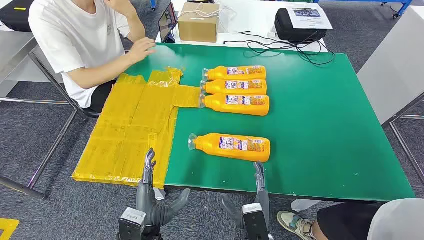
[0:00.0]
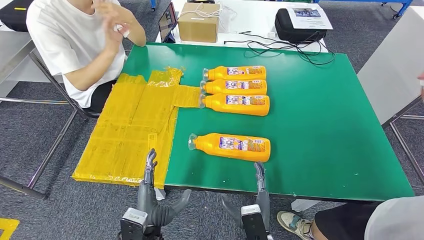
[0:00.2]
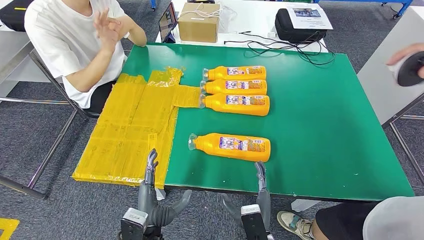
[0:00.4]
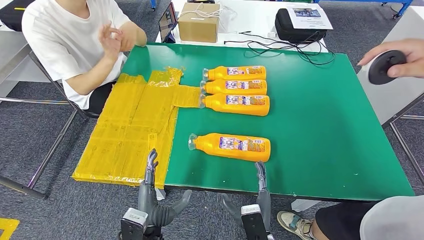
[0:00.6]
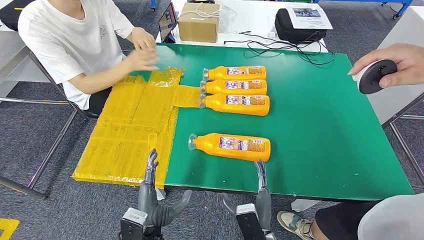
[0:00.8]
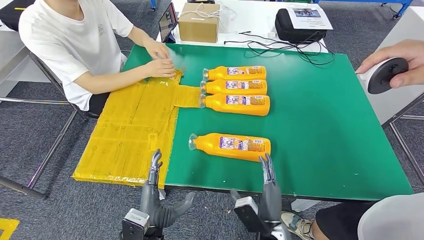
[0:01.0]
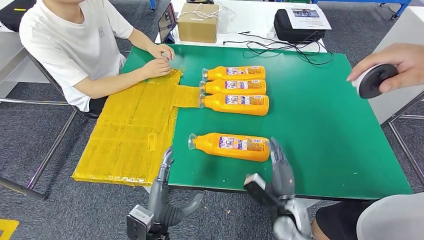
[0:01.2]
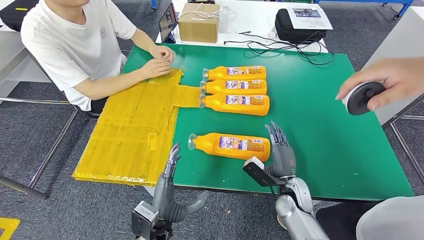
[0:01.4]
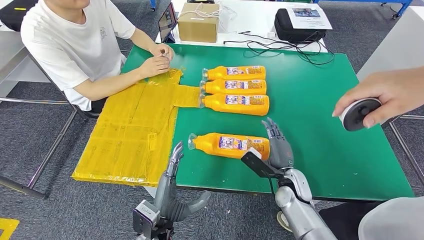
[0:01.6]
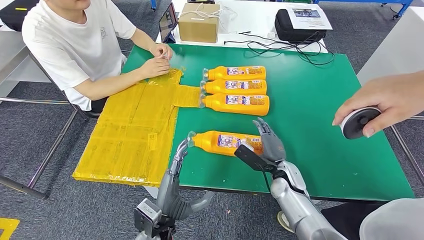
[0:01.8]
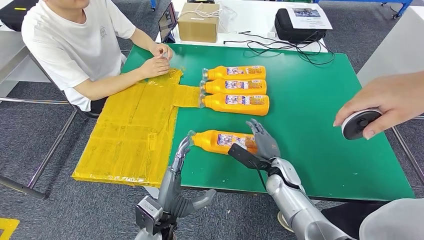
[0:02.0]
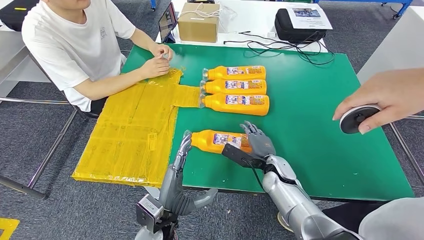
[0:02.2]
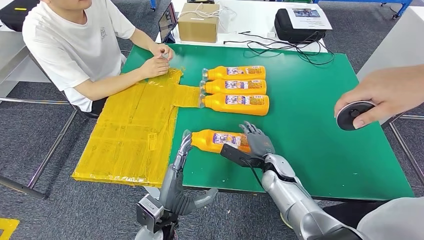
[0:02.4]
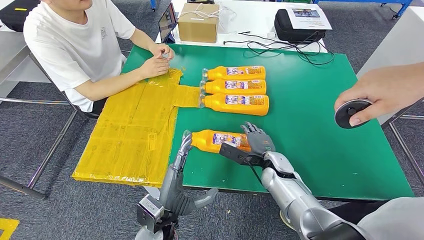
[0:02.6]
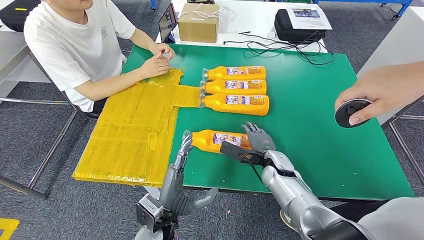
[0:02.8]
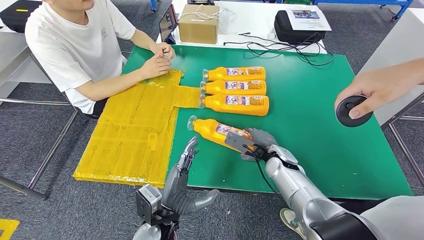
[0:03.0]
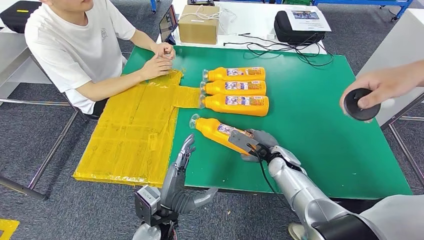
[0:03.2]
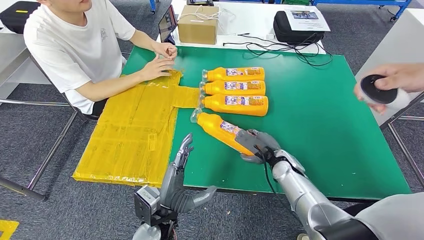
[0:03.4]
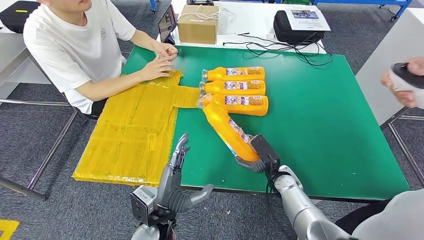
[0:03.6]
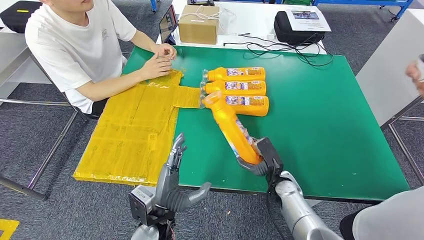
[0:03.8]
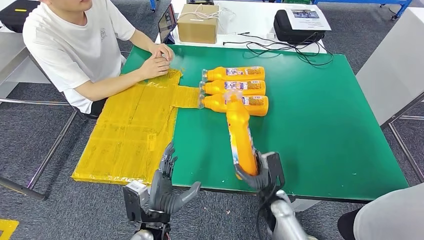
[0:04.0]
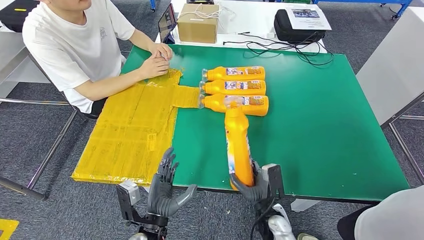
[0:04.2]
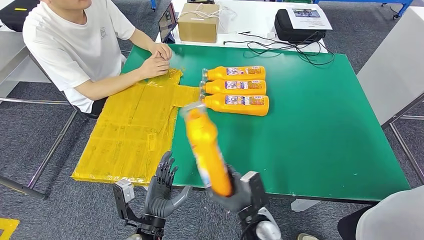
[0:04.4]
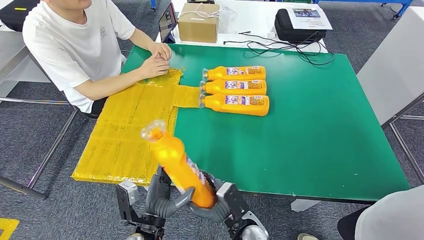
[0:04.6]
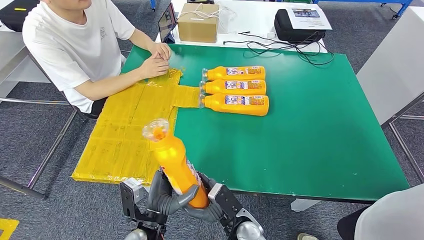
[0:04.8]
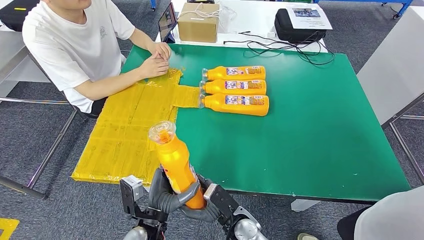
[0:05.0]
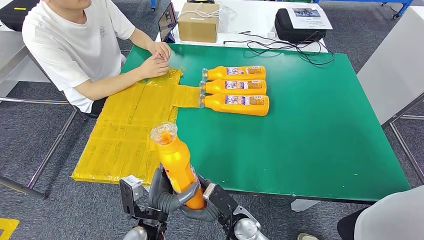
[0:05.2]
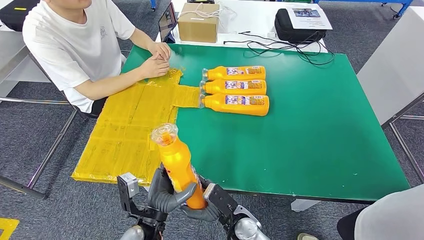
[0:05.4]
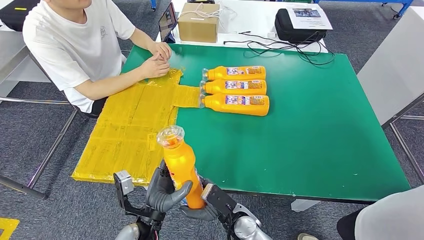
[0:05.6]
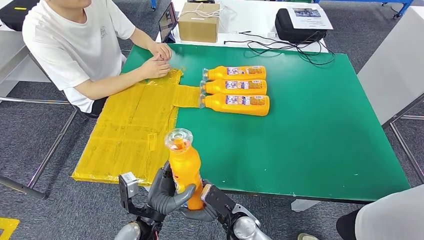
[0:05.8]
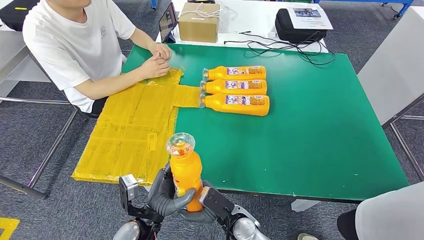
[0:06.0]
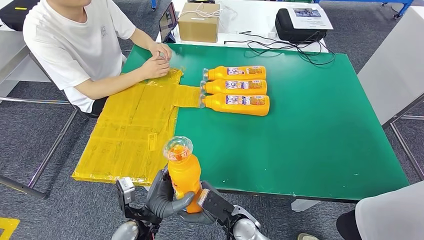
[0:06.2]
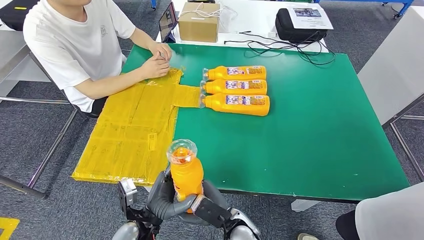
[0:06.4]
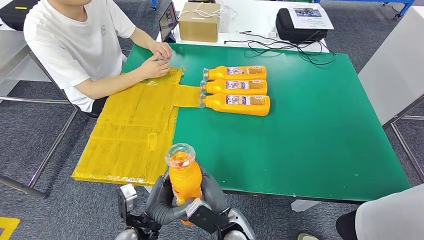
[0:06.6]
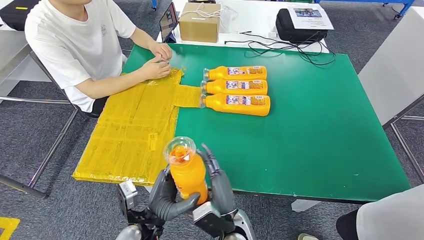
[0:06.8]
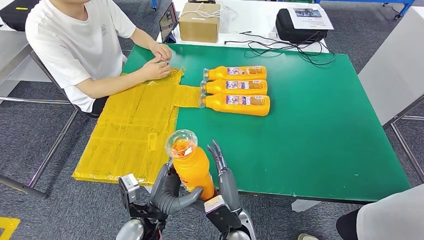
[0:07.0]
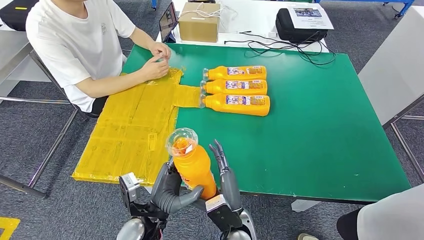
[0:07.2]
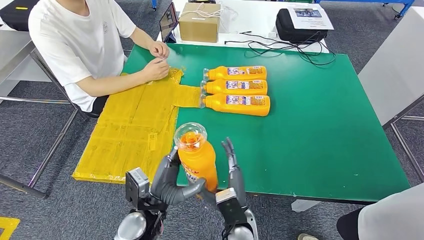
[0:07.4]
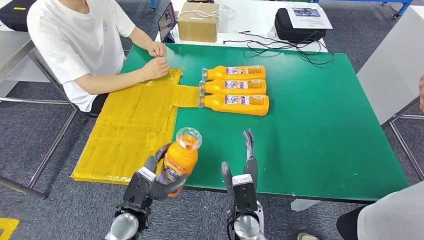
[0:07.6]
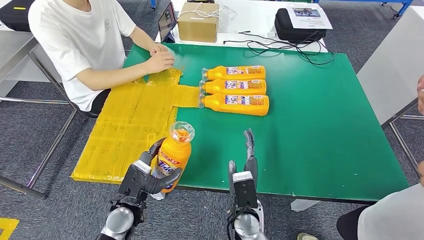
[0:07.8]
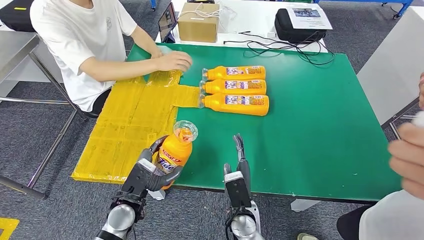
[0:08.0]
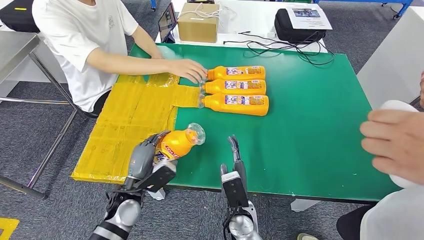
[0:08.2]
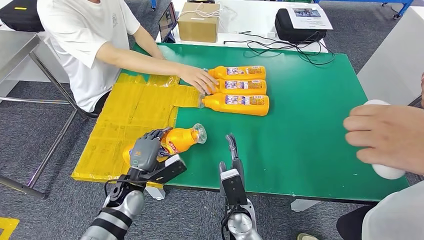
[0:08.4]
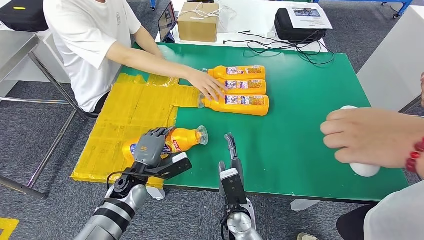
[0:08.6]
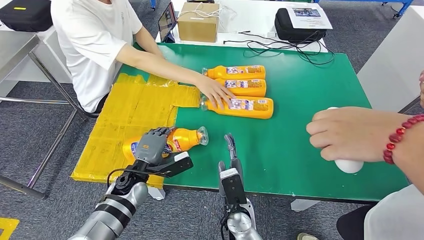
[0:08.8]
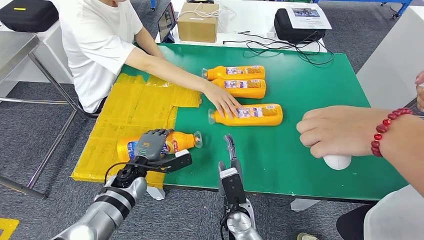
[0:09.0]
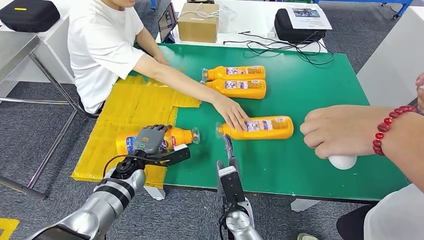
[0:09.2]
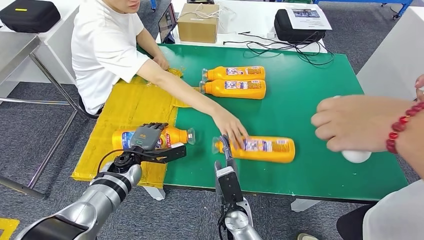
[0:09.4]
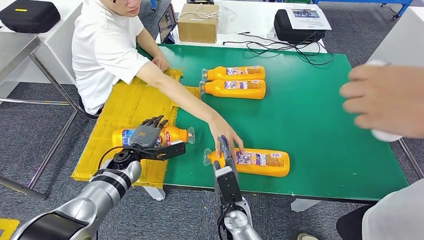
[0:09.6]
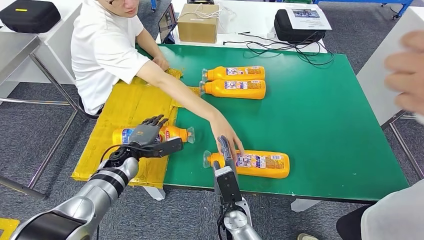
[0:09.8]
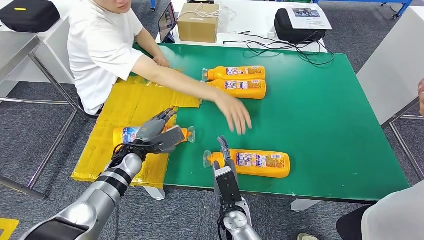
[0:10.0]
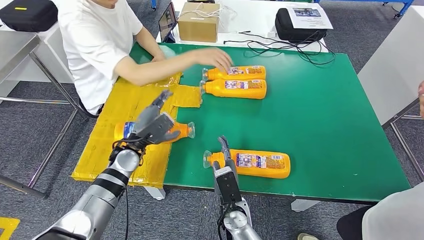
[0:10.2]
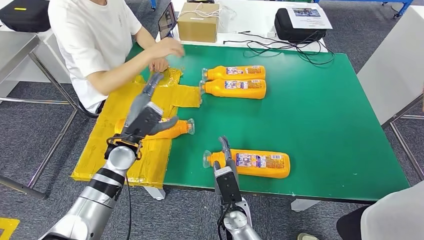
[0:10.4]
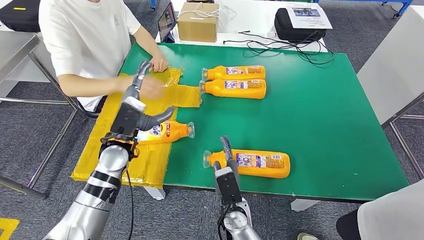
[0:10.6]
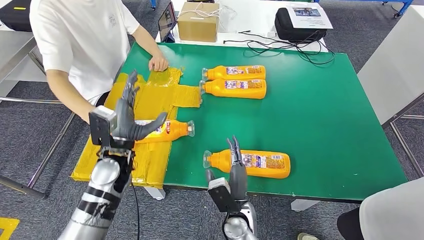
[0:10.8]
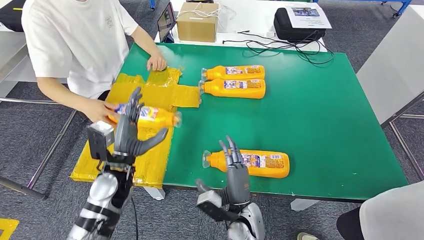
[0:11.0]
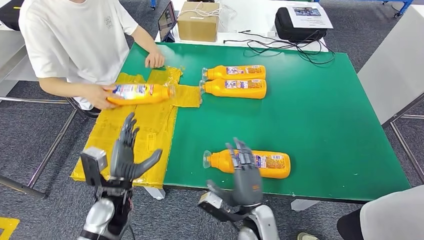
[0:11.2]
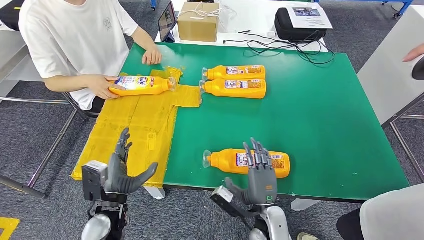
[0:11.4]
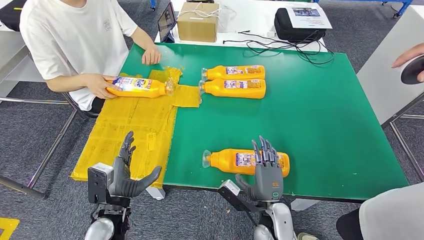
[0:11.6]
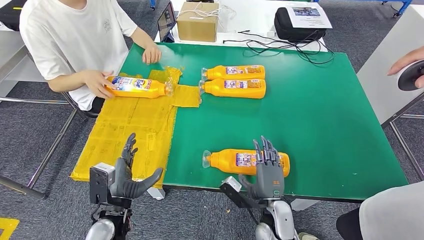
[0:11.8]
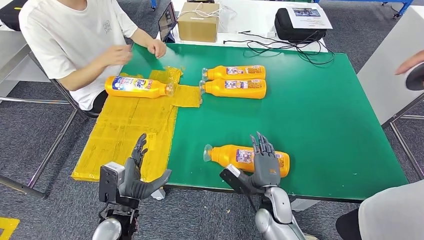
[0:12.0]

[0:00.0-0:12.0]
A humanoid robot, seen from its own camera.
Step, 0:00.0 to 0:04.0: Take the bottle from the table.
Step, 0:04.4 to 0:10.6: Flip the bottle to face forward.
0:01.6 to 0:03.0: The right hand travels forward by about 5 cm.
0:03.0 to 0:04.4: The right hand shifts some 15 cm backward. The left hand moves some 5 cm.
0:04.4 to 0:06.0: The right hand goes roughly 5 cm to the left.
0:06.0 to 0:07.6: The left hand ends up some 5 cm from where it was, while the right hand changes place by roughly 5 cm.

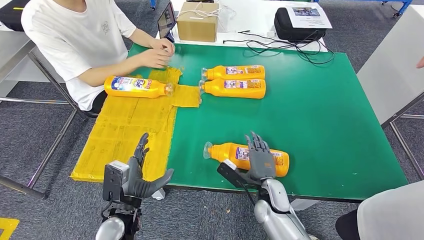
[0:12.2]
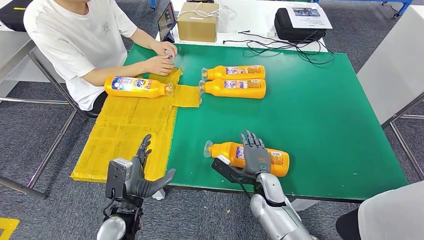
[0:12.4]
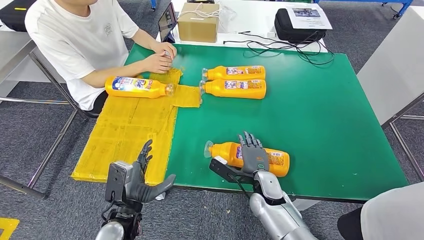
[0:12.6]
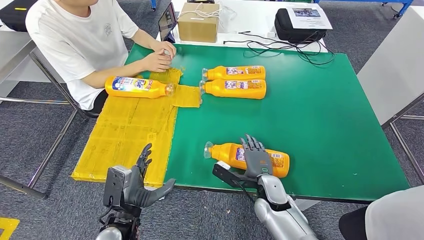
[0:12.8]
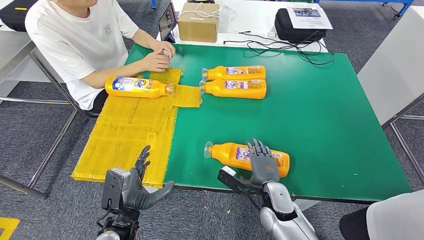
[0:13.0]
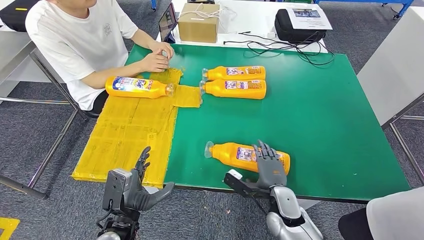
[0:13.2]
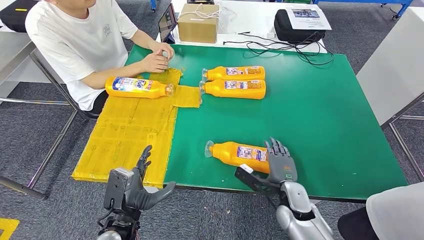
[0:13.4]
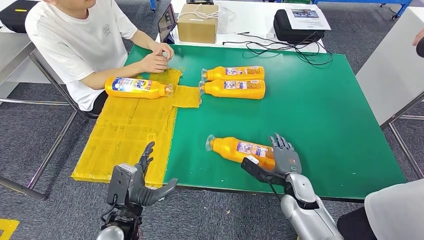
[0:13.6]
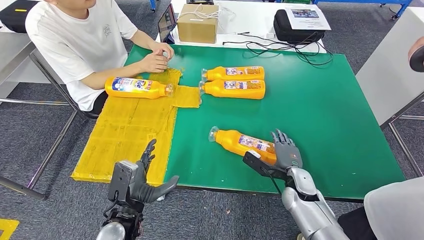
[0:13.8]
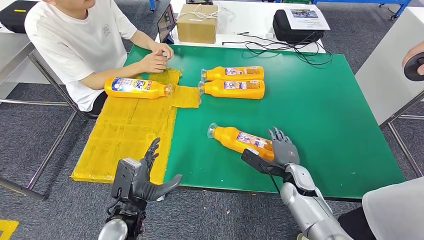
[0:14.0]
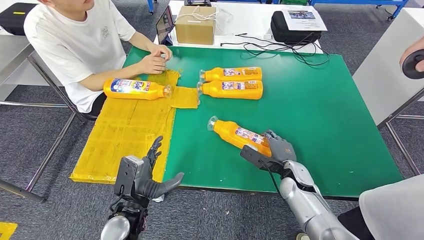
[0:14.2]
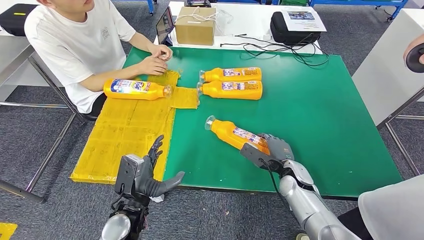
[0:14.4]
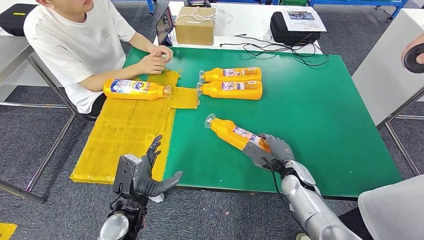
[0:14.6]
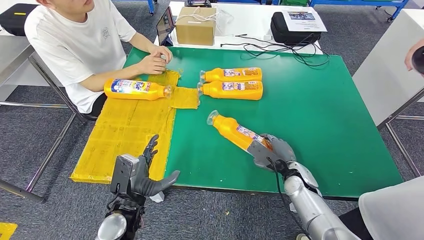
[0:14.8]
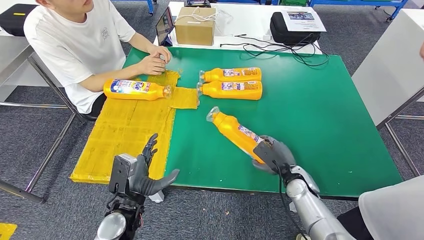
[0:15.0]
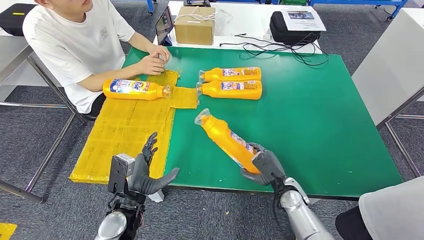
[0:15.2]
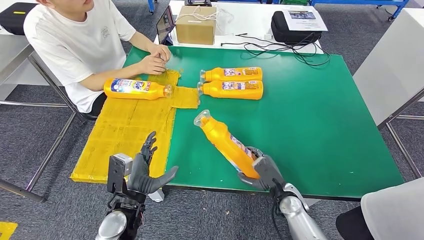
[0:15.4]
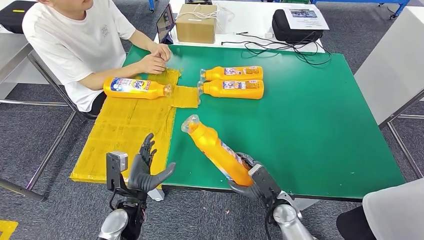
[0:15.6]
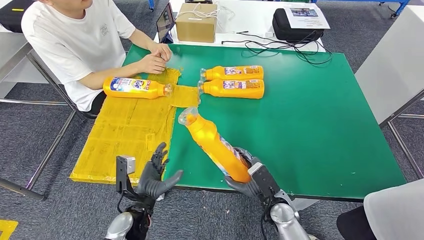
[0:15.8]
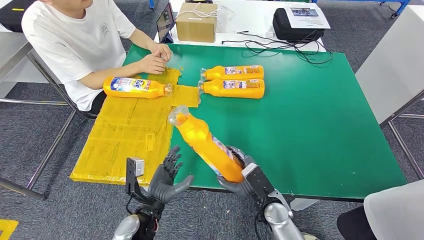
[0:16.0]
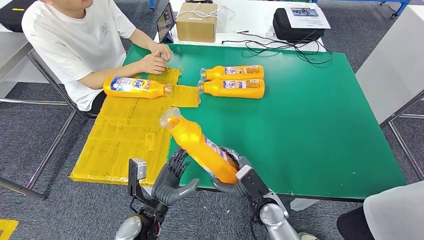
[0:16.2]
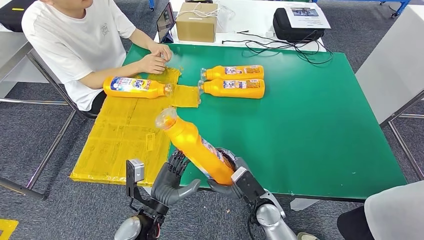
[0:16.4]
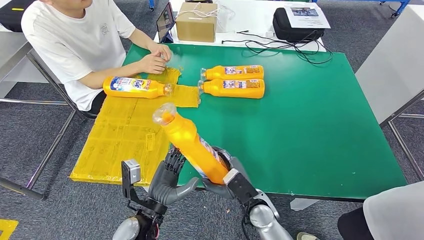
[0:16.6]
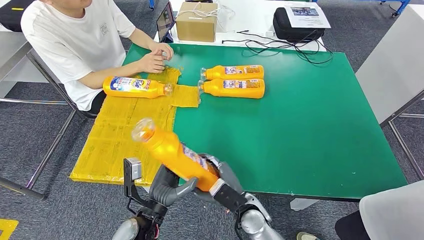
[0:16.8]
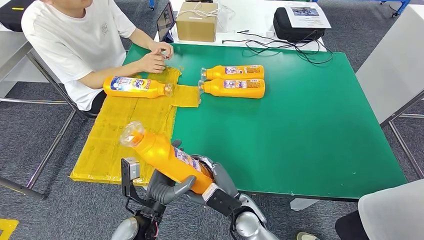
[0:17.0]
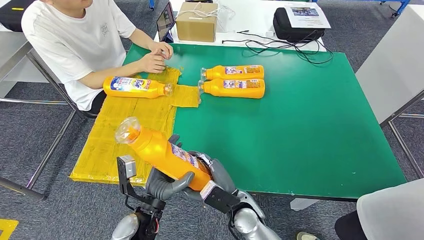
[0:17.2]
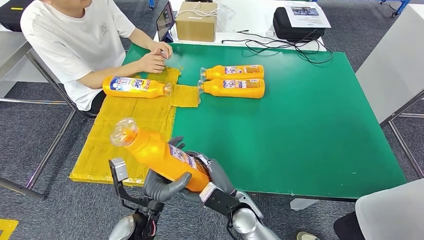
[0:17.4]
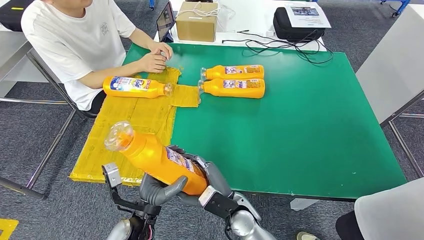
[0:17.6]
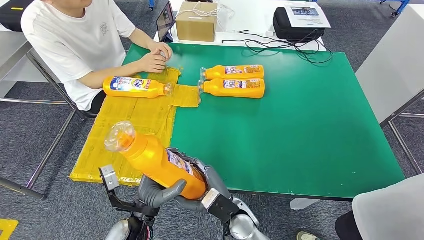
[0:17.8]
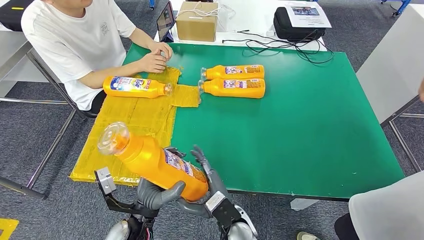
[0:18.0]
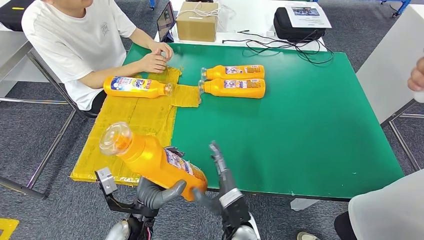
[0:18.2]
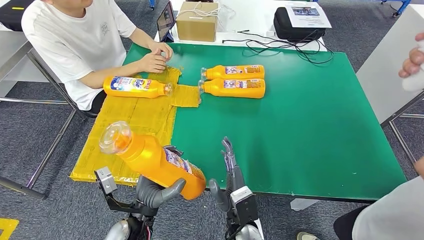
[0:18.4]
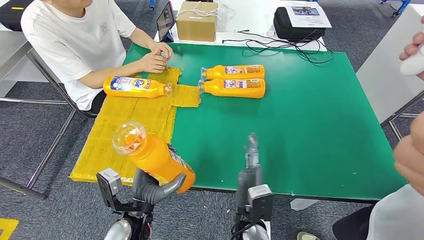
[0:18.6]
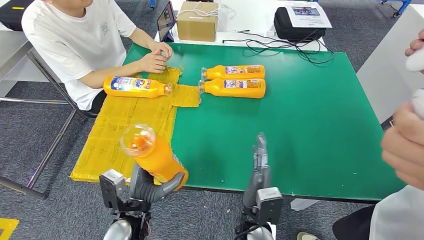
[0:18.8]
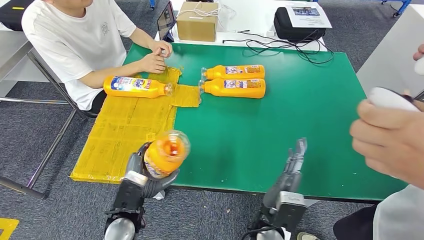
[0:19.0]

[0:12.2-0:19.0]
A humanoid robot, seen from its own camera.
Step, 0:12.2 to 0:15.2: Pick up the bottle from the table.
0:12.2 to 0:13.6: The right hand heads to the right, covering about 10 cm.
0:16.2 to 0:17.6: The right hand heads to the left, covering about 10 cm.
0:17.6 to 0:19.0: The right hand heads to the right, covering roughly 5 cm.
